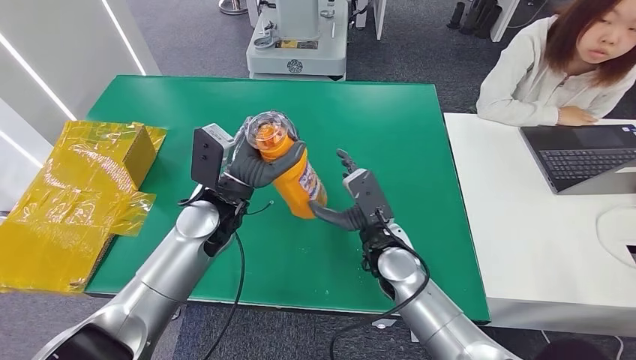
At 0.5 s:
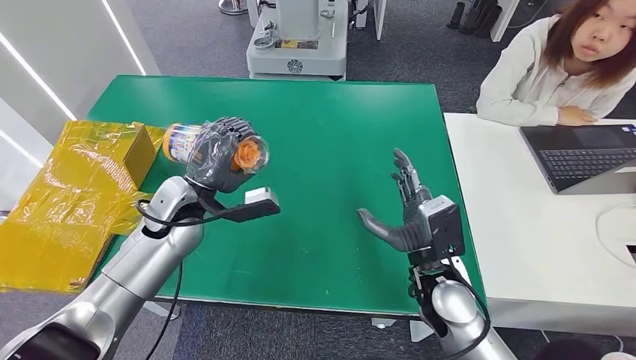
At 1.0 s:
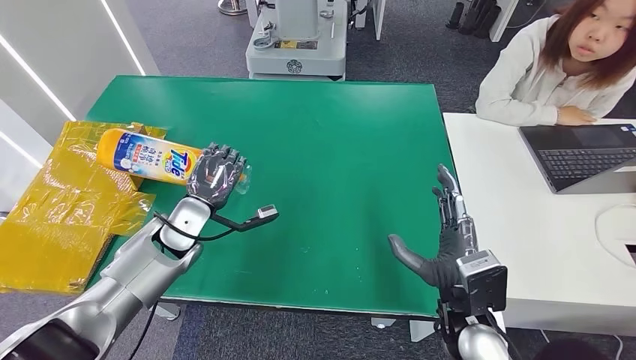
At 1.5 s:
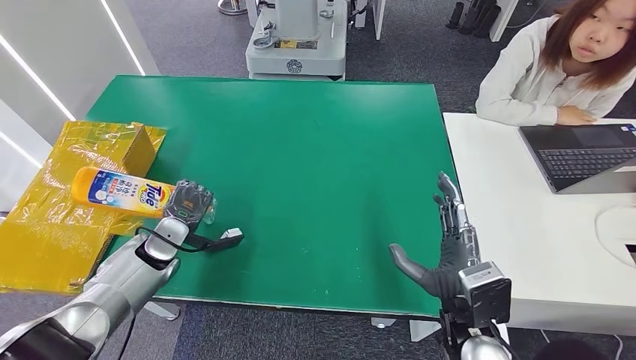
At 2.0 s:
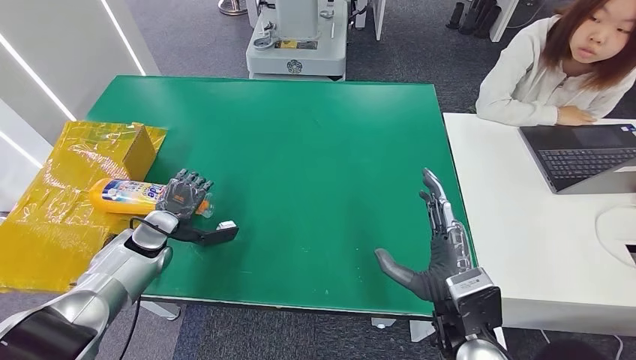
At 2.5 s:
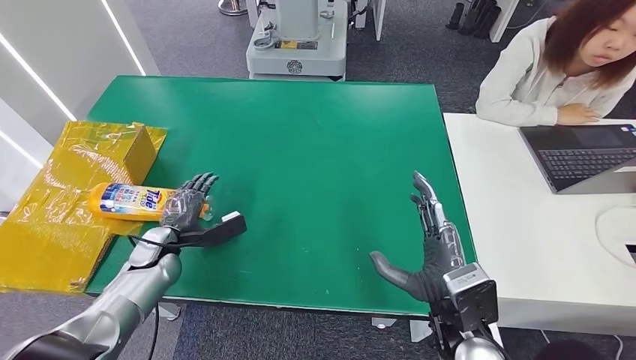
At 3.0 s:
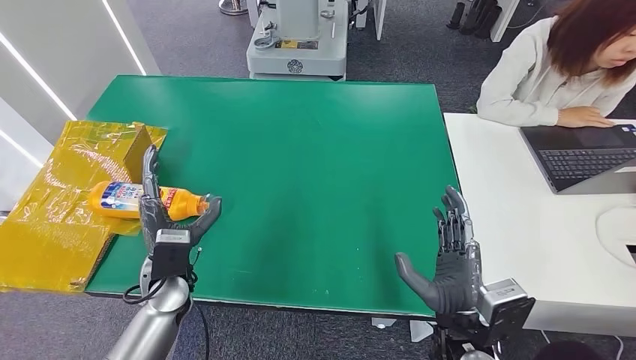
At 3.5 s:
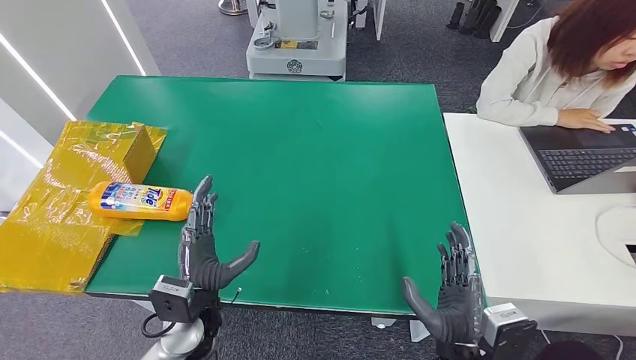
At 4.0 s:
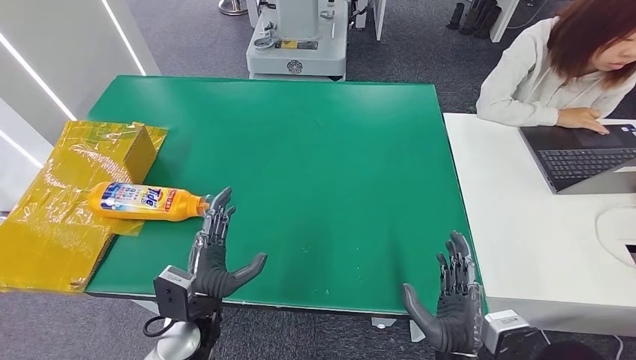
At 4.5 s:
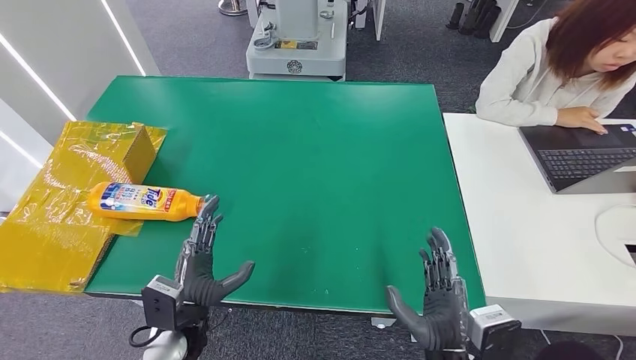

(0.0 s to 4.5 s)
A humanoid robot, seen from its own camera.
Step, 0.0 s - 4.0 s: Turn the bottle to the front side.
2.0 s - 4.5 s: The left hand heads backward and to the right, covering roughly 20 cm; the right hand moves backward, roughly 5 cm.
